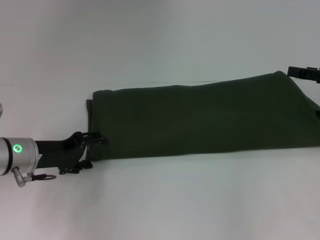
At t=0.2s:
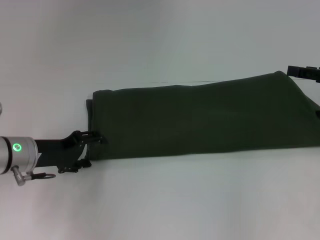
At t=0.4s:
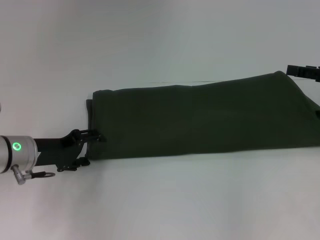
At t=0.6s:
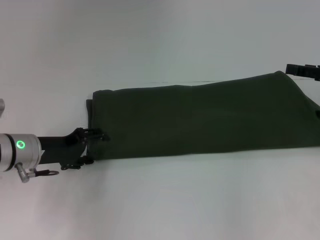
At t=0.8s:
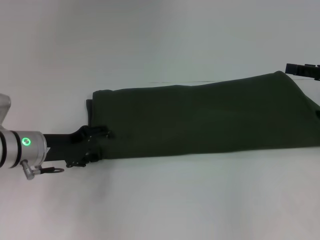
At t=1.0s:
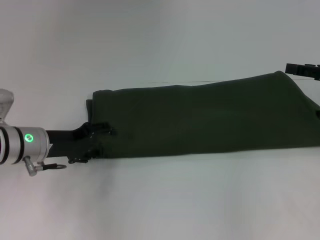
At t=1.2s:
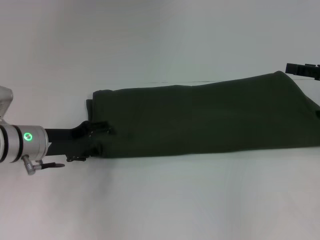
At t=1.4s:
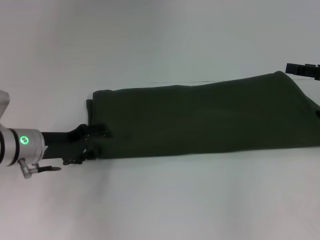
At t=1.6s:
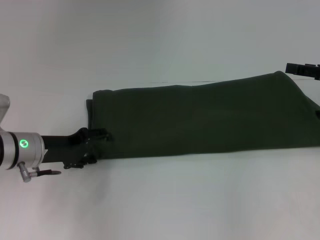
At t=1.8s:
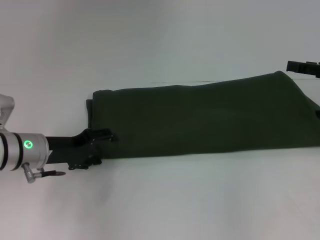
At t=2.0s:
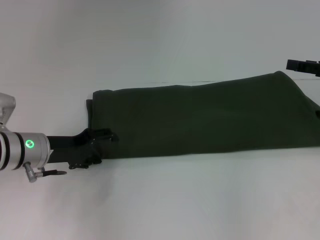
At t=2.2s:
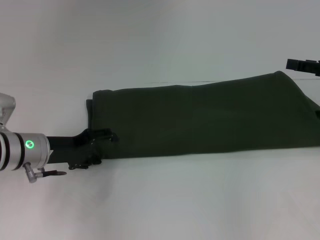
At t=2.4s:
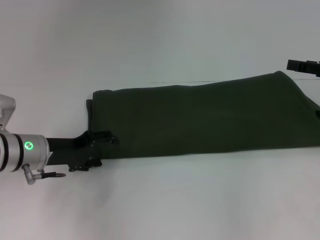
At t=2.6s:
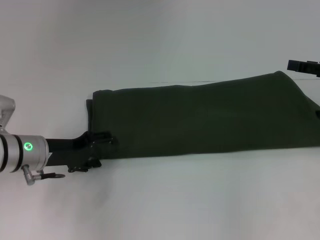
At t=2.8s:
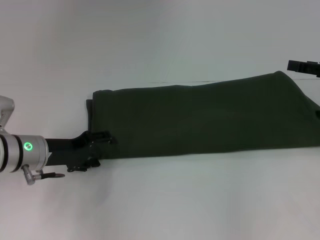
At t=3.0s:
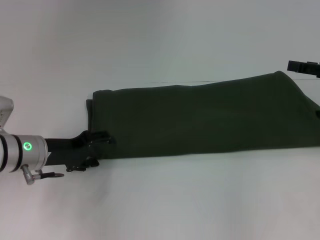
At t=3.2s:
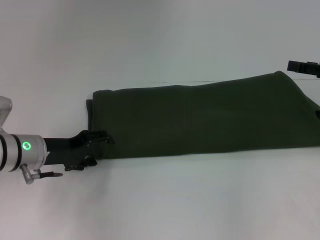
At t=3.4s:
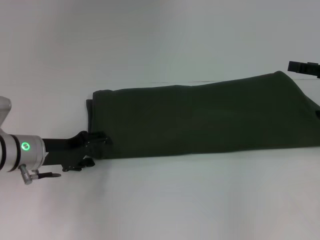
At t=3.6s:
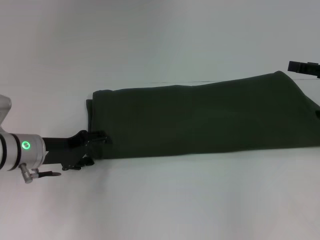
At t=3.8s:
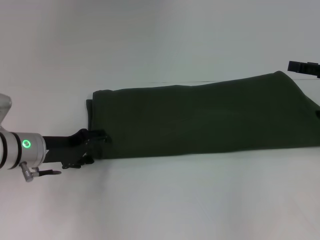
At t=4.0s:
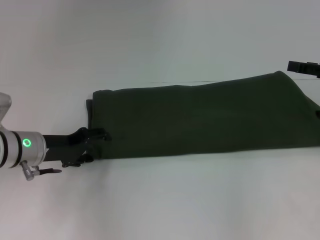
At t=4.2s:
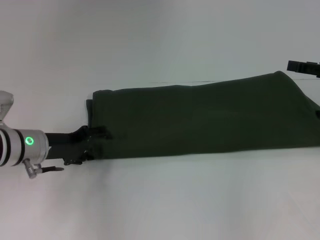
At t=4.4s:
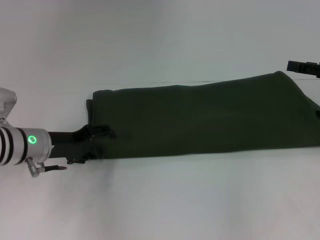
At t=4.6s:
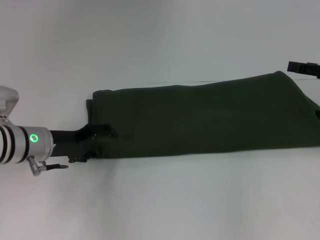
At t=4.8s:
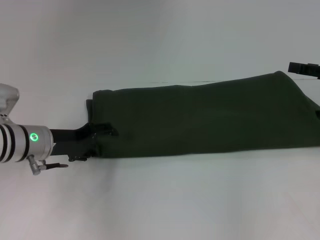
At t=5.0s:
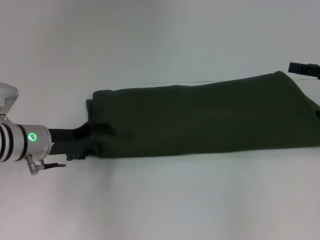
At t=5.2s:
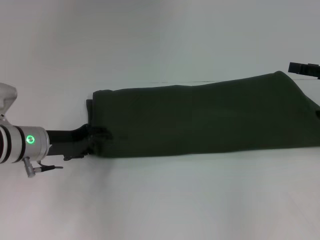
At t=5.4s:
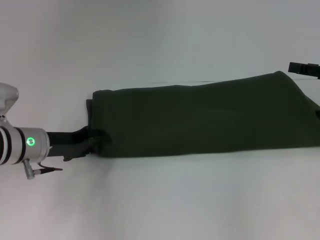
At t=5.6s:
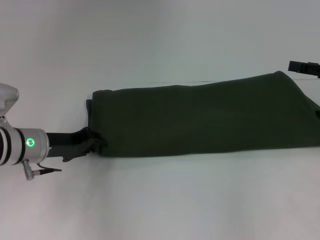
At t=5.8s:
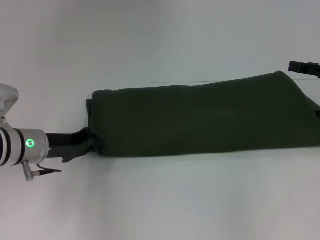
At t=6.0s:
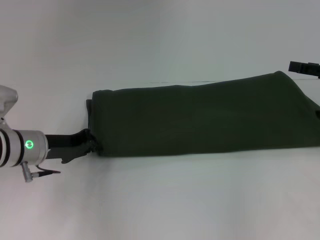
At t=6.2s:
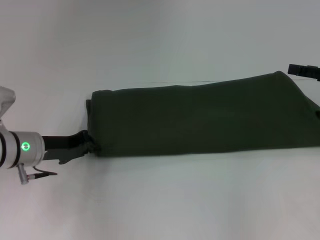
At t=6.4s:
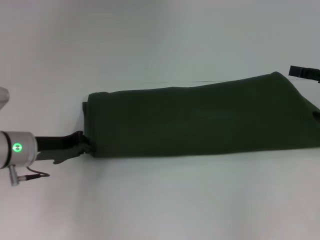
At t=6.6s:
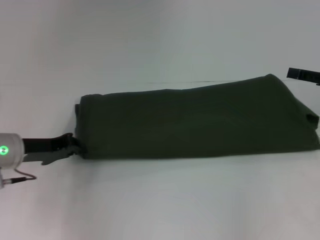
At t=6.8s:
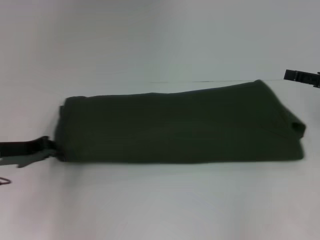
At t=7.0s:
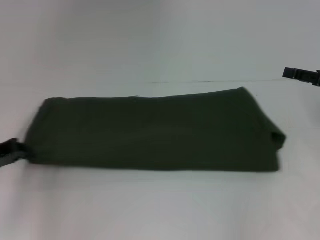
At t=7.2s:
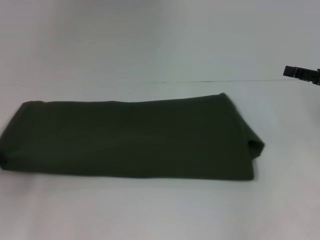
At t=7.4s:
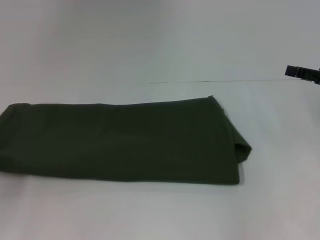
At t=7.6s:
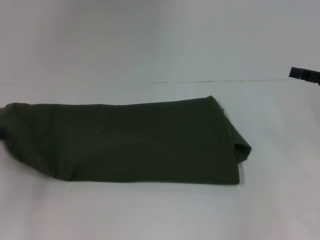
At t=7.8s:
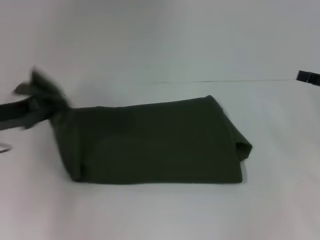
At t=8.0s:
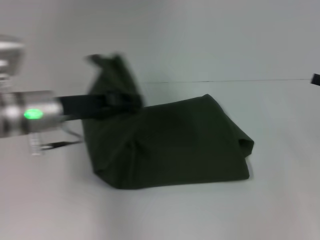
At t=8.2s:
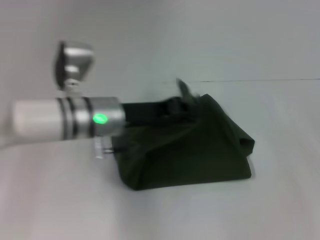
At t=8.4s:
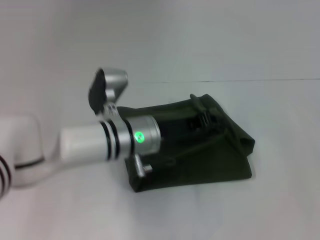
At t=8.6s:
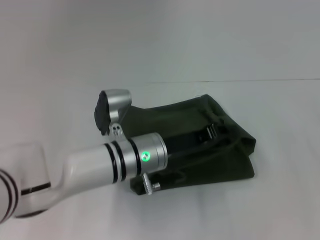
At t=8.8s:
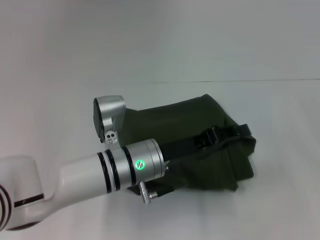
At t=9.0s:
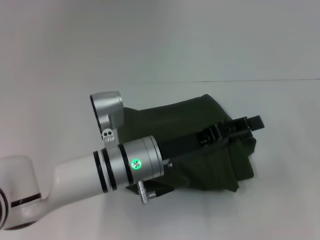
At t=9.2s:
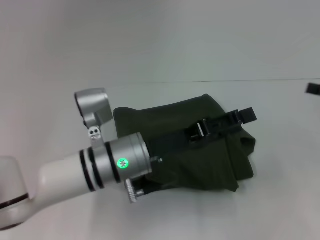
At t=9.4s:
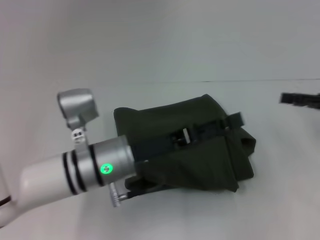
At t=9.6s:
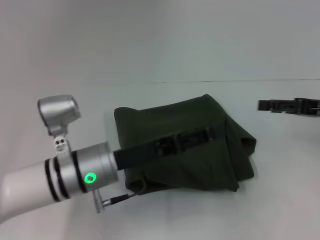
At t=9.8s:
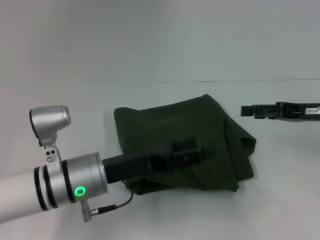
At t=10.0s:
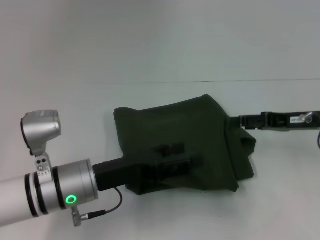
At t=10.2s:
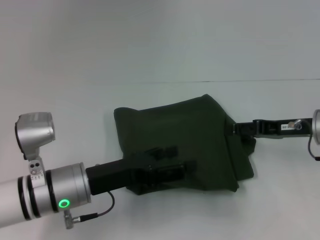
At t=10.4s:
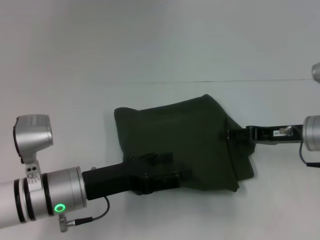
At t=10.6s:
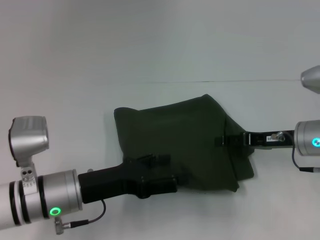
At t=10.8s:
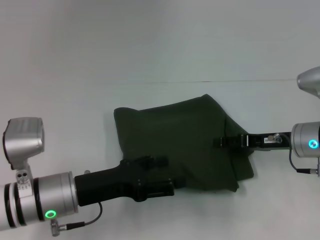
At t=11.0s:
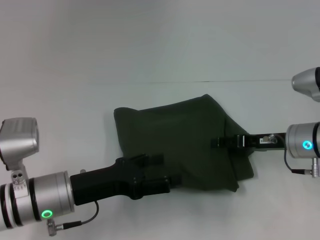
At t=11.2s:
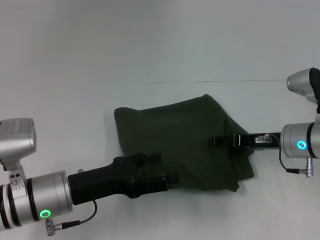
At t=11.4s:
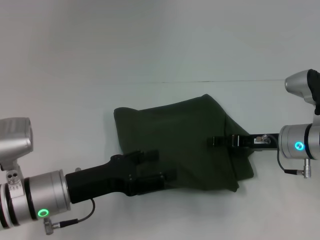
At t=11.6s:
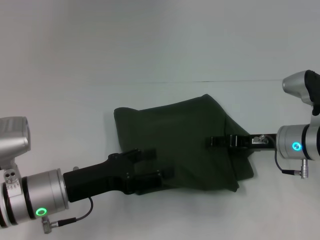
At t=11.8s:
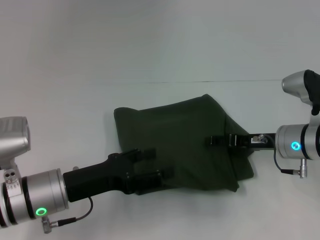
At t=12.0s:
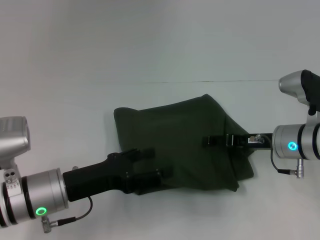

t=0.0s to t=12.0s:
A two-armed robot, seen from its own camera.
Step, t=0.0s to t=9.0s: Fold the clothes with your left hand.
t=0.0s to t=1.6s: There are only small adjustments of the grippers.
t=1.6s to t=4.4s: Neither gripper changes place.
t=4.4s to t=6.0s: The left gripper closes its fingers.
t=6.0s to t=7.6s: The left gripper shifts approximately 15 cm to the left and backward.
t=7.6s to t=9.0s: The left gripper travels to the right by roughly 30 cm.
t=9.0s to t=10.4s: The two grippers go some 10 cm to the left. The left gripper opens.
t=10.4s to t=12.0s: The grippers move only a little.

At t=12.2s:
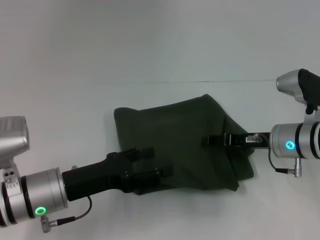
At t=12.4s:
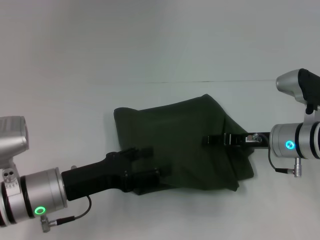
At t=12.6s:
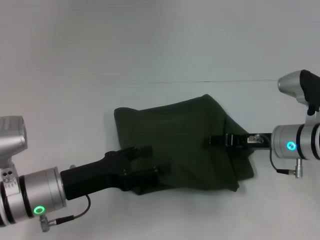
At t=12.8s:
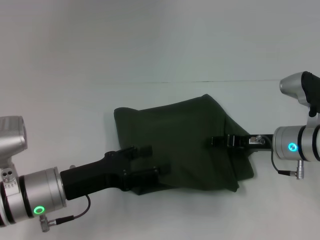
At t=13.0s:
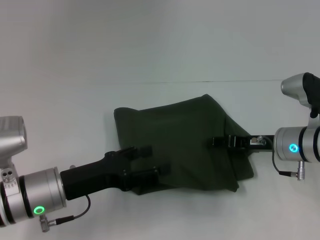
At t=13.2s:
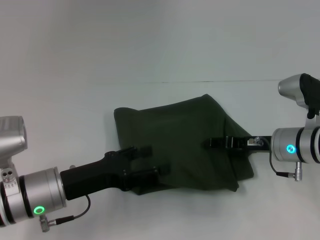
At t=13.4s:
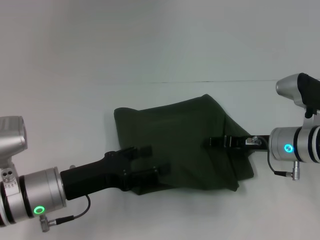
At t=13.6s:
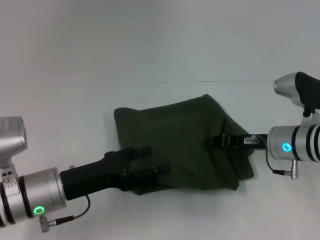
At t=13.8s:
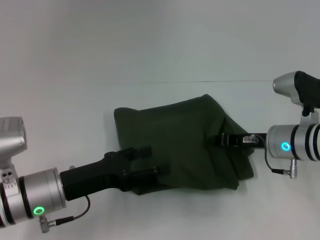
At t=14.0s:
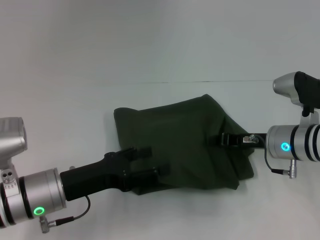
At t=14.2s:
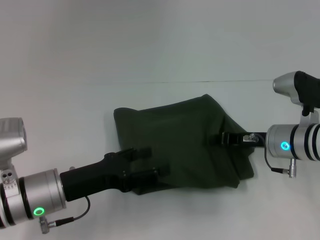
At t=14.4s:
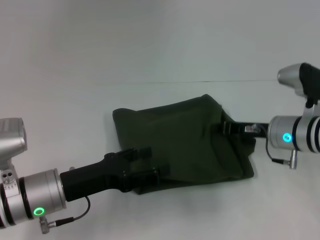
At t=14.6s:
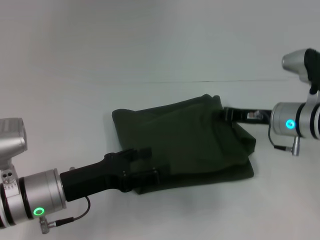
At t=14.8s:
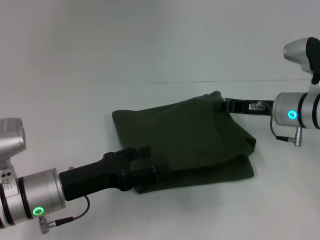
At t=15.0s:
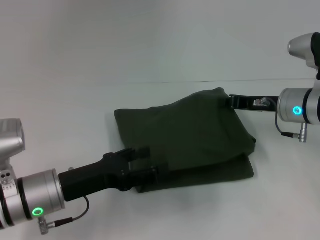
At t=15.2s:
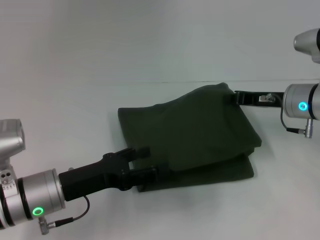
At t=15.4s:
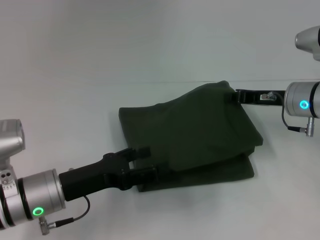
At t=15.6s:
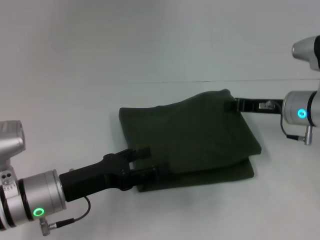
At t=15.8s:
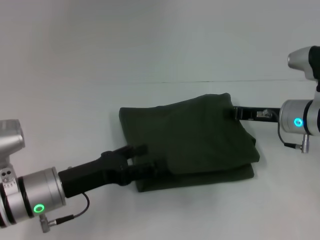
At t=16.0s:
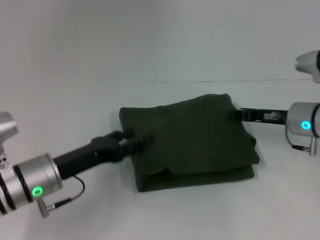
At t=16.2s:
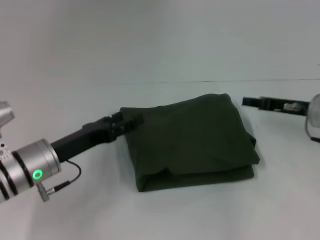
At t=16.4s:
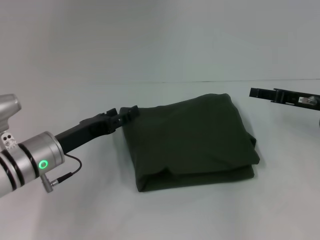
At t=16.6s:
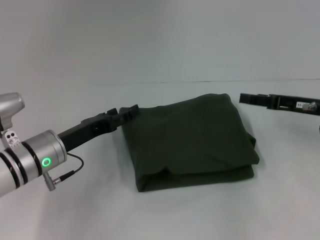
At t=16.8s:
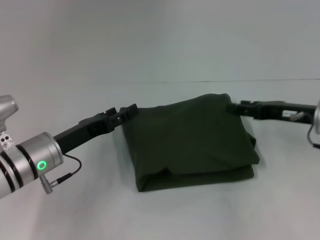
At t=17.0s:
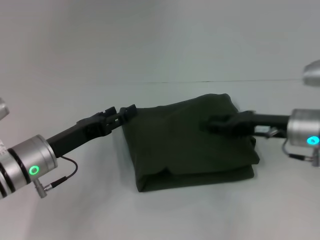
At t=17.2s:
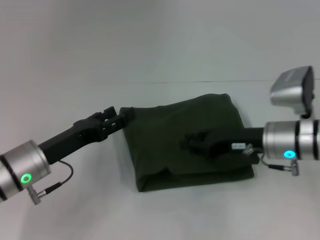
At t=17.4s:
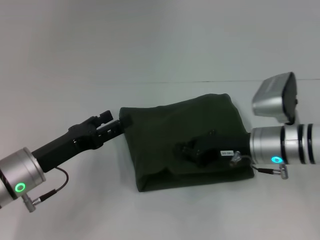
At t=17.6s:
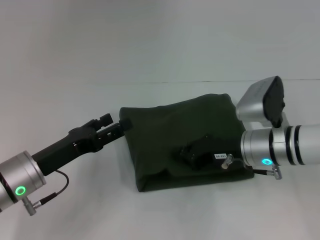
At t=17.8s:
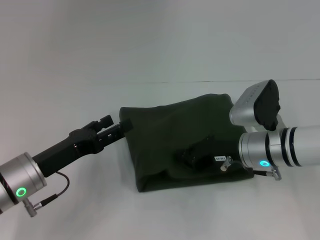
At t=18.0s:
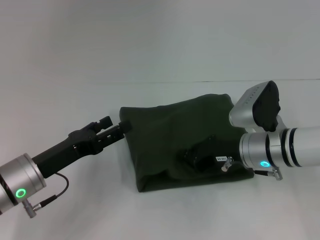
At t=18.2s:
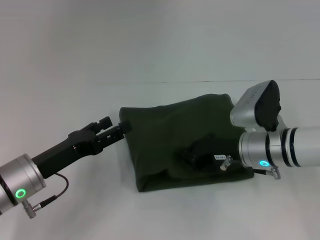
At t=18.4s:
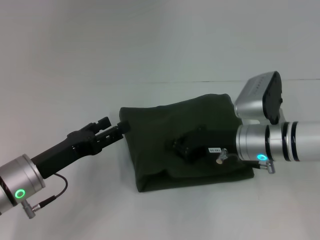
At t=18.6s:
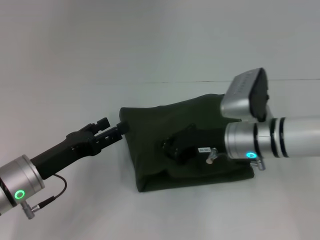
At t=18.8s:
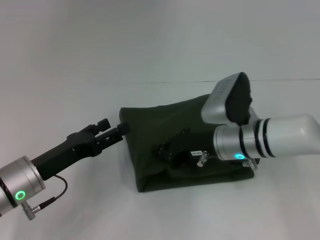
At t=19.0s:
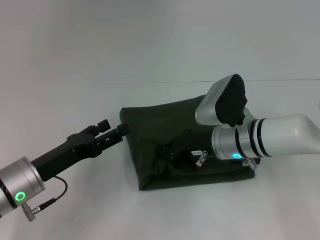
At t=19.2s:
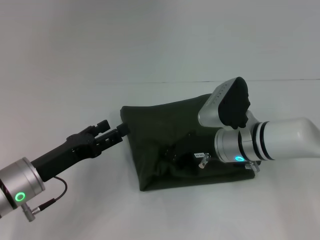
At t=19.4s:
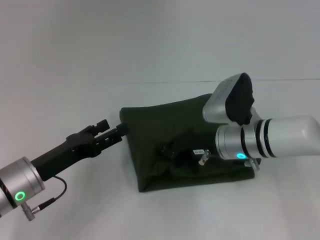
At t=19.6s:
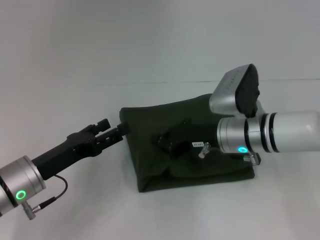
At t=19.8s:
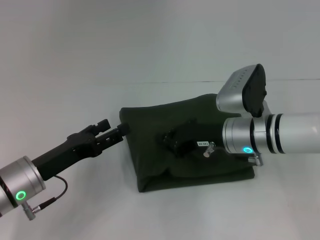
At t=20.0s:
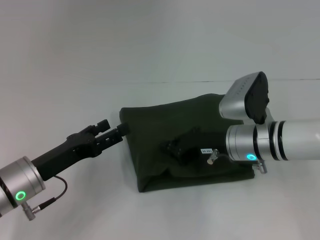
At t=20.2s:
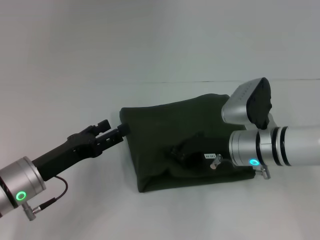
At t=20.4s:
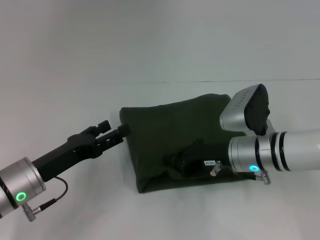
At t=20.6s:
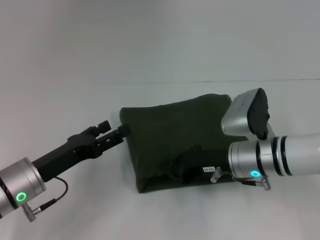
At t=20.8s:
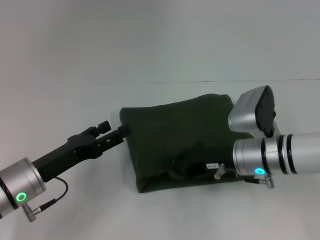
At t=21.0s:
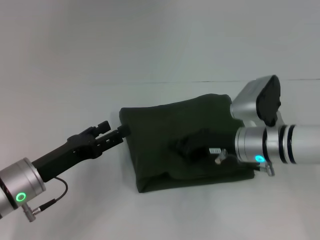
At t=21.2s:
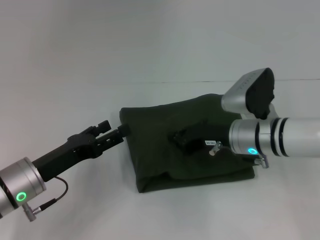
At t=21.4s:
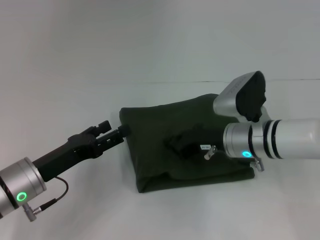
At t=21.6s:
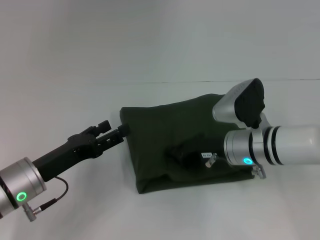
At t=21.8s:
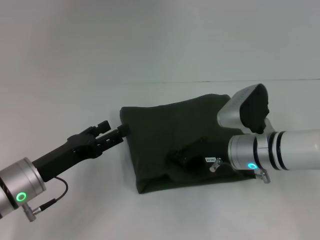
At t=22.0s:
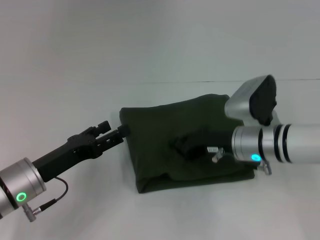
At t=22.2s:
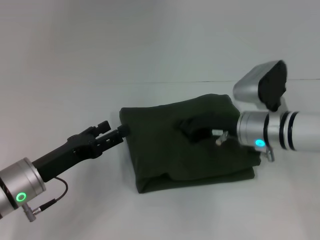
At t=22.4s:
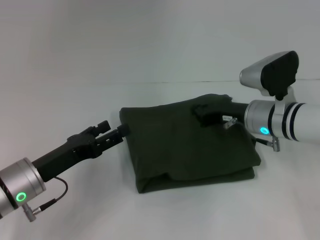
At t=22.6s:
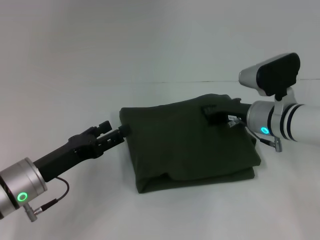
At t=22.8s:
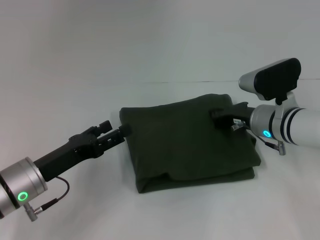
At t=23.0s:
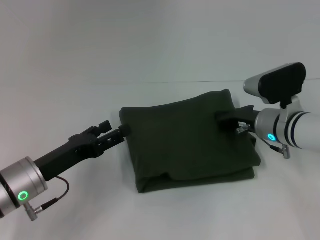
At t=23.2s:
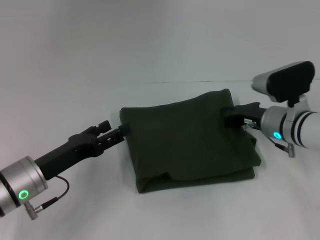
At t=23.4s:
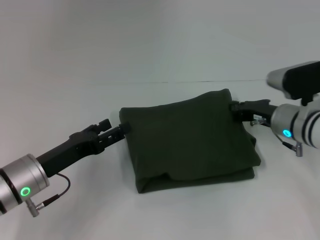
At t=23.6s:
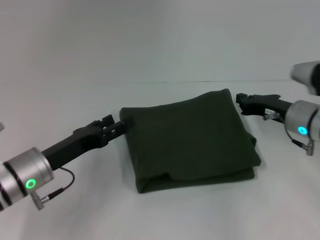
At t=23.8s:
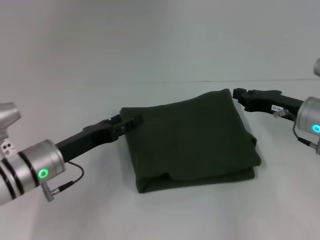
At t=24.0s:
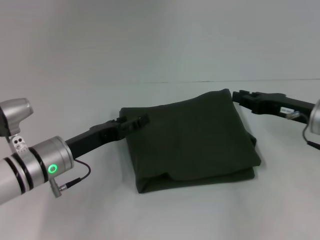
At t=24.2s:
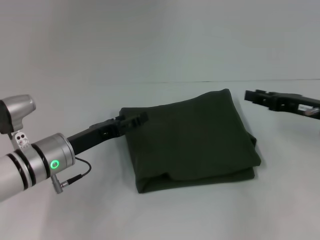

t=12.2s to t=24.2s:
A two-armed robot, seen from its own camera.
t=12.2s to t=13.8s: The right gripper closes.
t=13.8s to t=15.2s: The right gripper moves approximately 5 cm.
t=15.2s to t=16.6s: The left gripper is displaced forward by about 5 cm, while the right gripper heads to the right, covering some 5 cm, and opens.
t=16.6s to t=18.2s: The right gripper is displaced to the left and downward by about 15 cm, and closes; the left gripper shifts by about 5 cm.
t=18.2s to t=21.2s: The grippers move only a little.
t=22.6s to t=24.2s: The right gripper shifts approximately 10 cm to the right. The left gripper shifts by some 5 cm.
